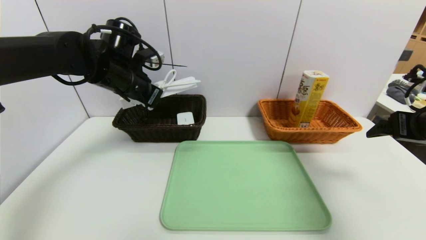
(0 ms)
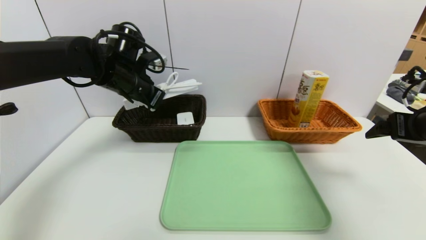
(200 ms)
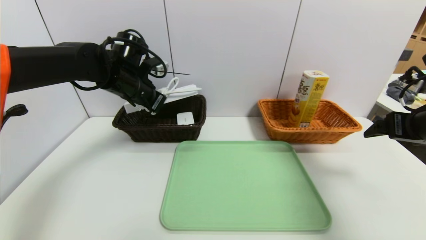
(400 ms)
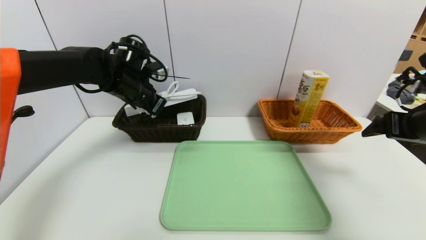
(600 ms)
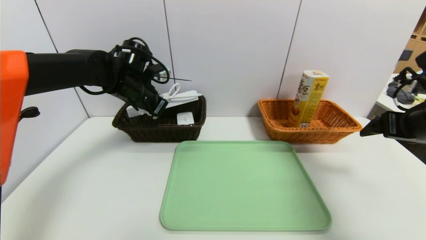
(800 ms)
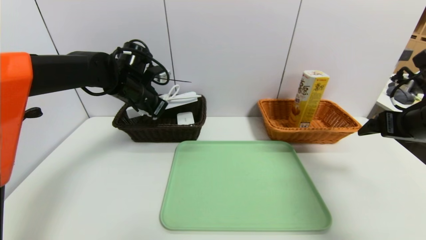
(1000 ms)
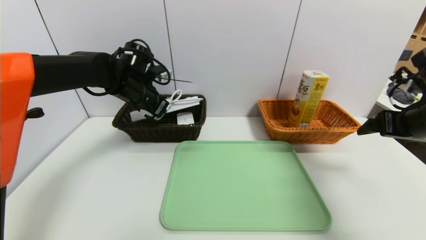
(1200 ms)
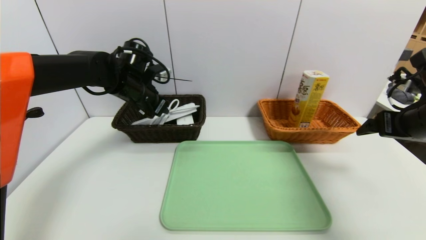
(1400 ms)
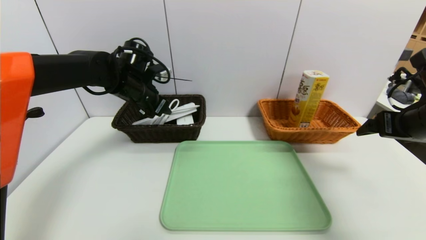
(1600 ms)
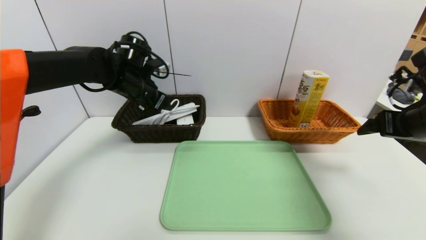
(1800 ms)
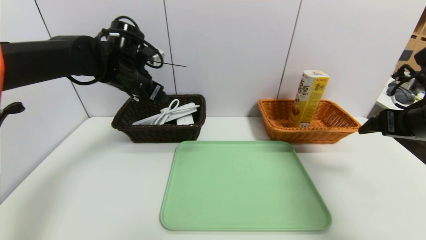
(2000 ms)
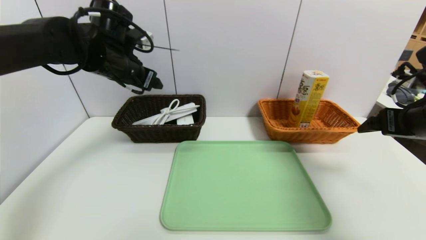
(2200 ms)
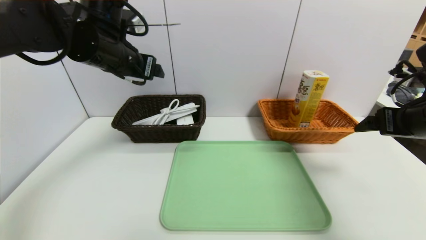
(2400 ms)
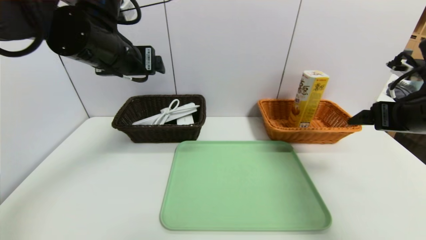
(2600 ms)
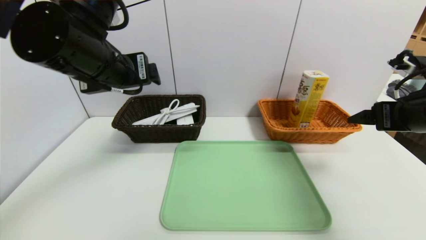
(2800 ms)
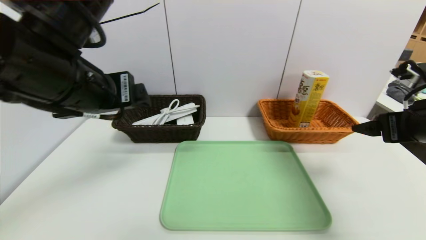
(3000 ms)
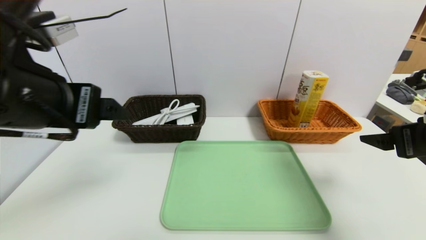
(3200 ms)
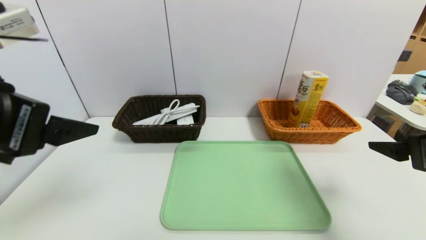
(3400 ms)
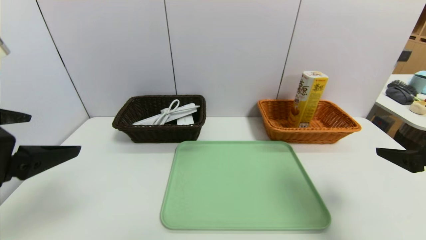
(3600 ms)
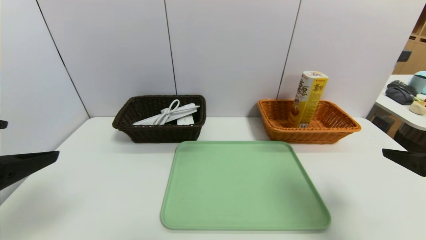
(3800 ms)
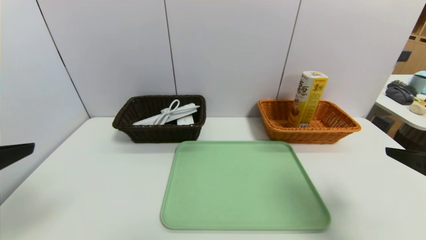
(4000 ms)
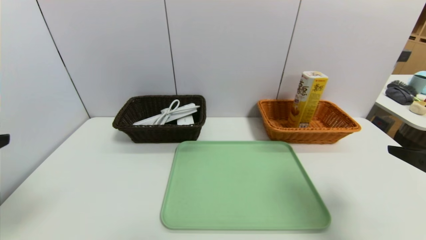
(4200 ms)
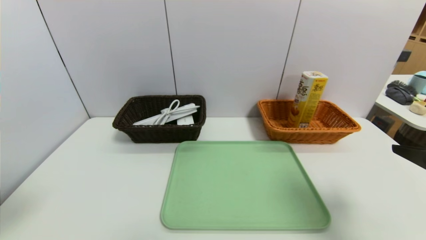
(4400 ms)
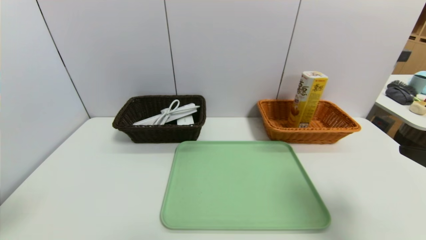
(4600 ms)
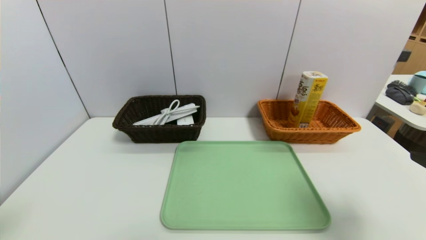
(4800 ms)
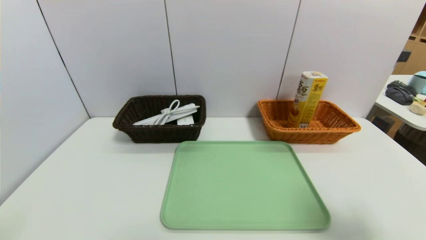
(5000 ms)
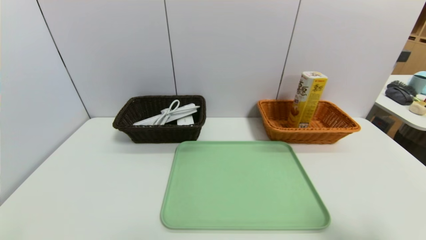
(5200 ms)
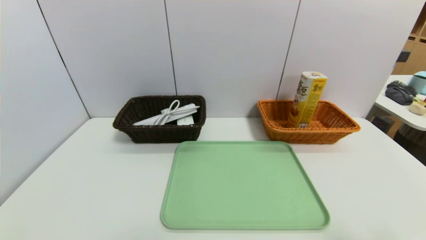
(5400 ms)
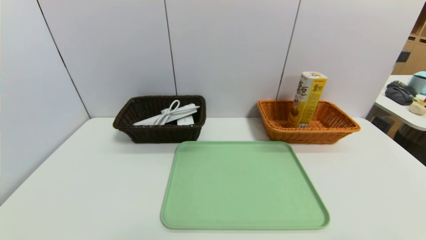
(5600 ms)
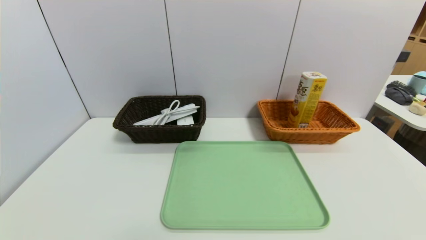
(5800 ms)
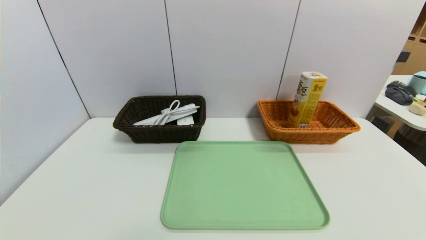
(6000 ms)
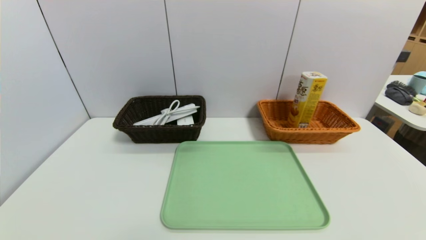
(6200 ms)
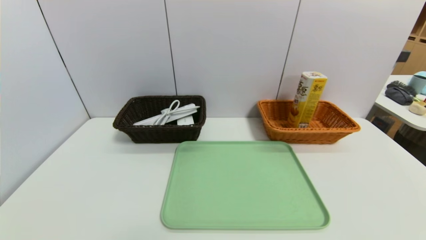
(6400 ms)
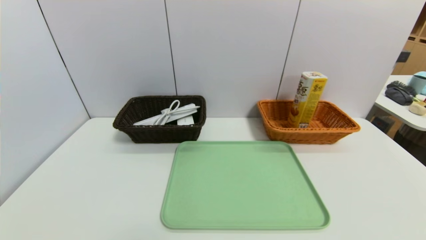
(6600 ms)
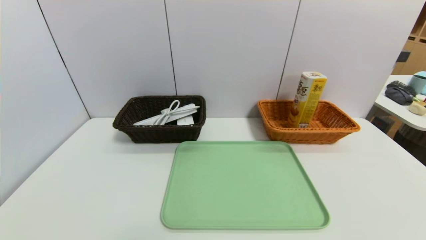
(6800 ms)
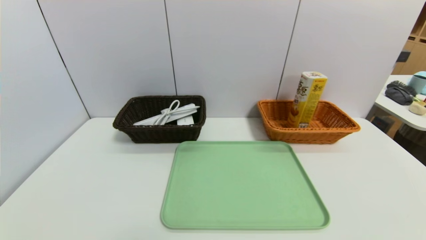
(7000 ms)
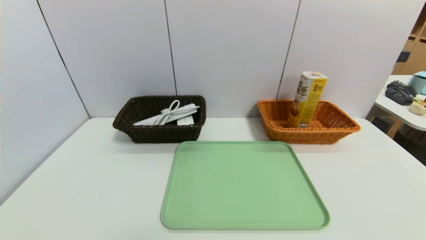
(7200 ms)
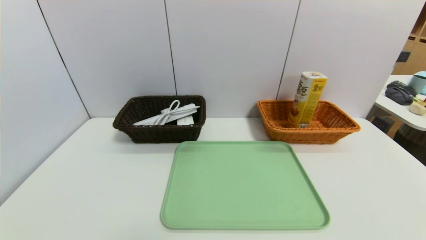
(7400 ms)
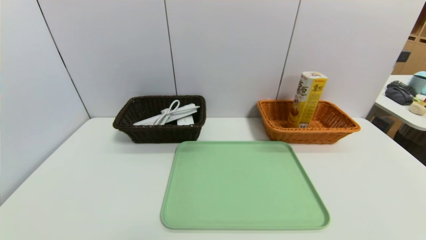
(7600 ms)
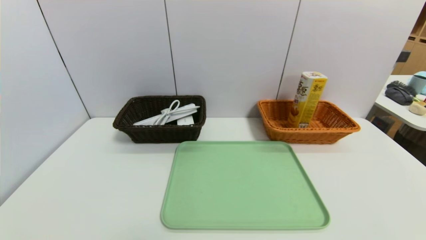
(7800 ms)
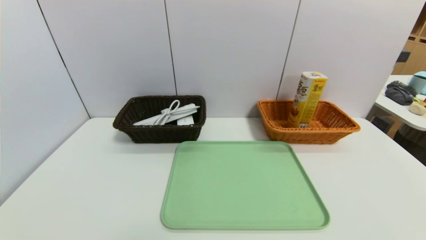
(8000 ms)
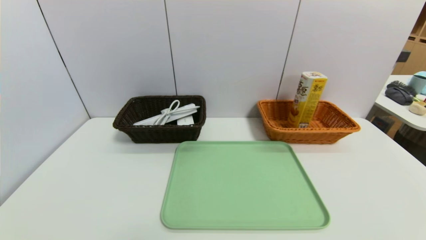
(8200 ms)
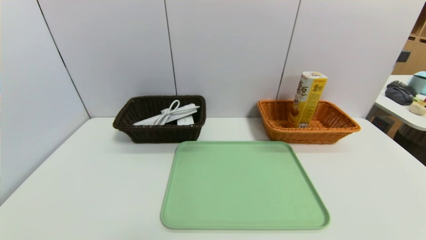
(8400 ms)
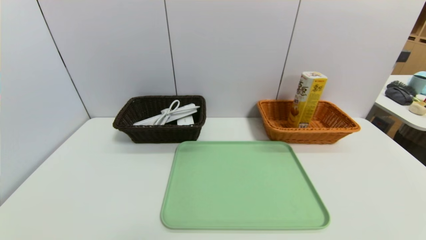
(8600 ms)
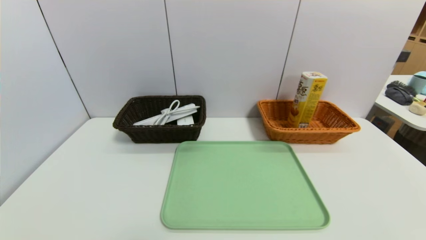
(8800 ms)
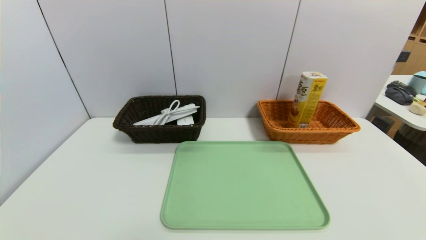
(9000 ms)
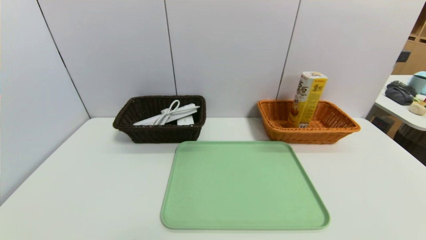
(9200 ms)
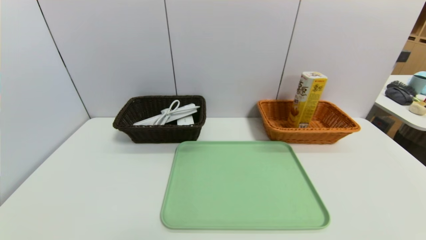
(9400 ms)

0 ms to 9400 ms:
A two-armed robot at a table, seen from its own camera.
Task of the whole recording: place the food in the right basket with the right gripper, and place the non food items in the left basket with the left gripper.
Step, 0 ms to 2000 ms: Grasp the power strip and put it in the left basket.
0 ms to 1600 ms: The left gripper opens its fingers.
1600 ms to 3200 ms: The right gripper travels backward by some 5 cm. The left gripper is displaced backward by about 25 cm.
3200 ms to 4800 ms: The right gripper travels backward by approximately 10 cm; the left gripper moves backward, to the left and downward, some 20 cm.
4800 ms to 6200 ms: The right gripper moves backward and downward, roughly 15 cm.
7800 ms to 9400 ms: Both grippers stay put.
